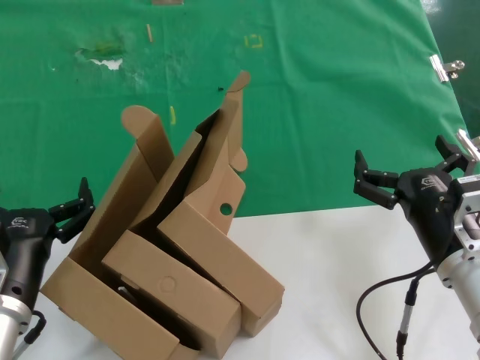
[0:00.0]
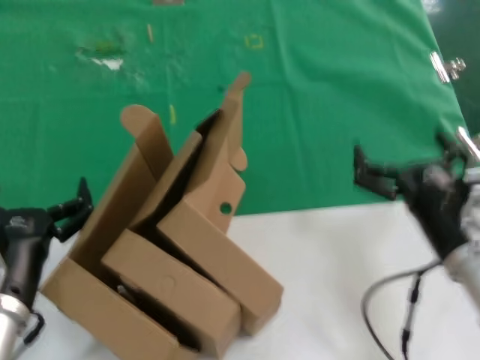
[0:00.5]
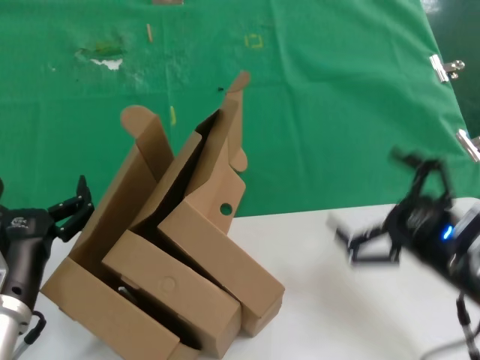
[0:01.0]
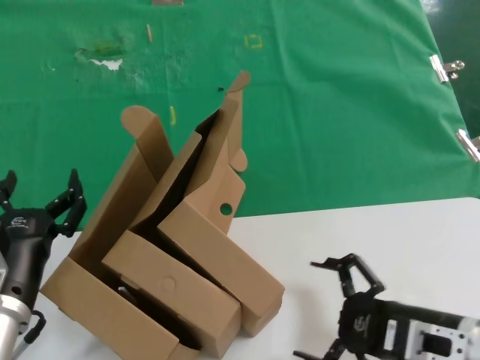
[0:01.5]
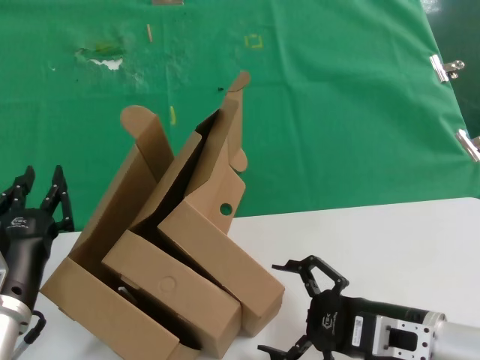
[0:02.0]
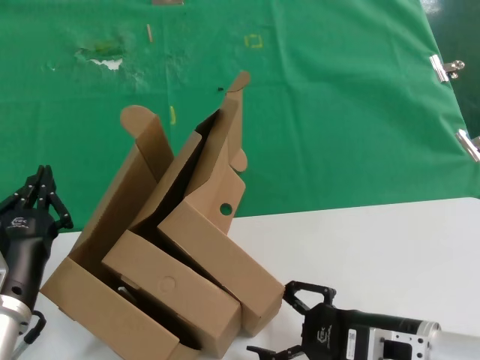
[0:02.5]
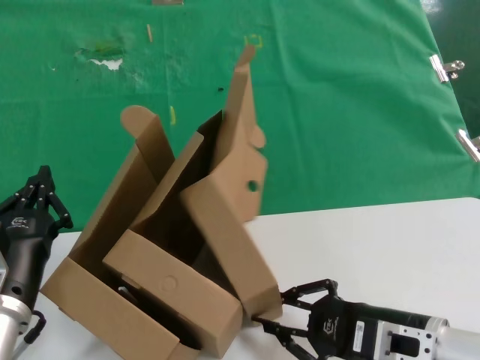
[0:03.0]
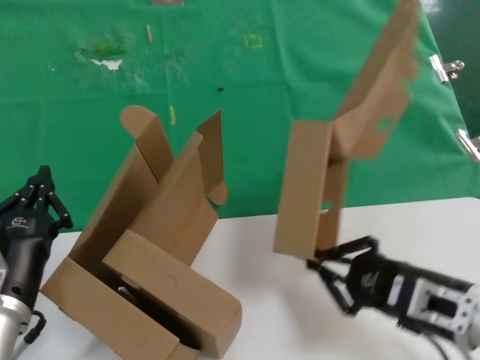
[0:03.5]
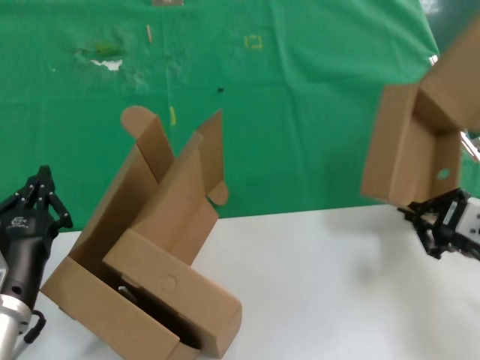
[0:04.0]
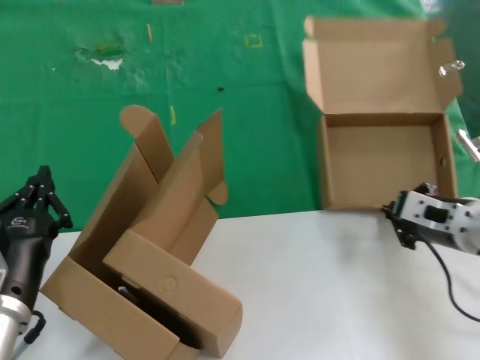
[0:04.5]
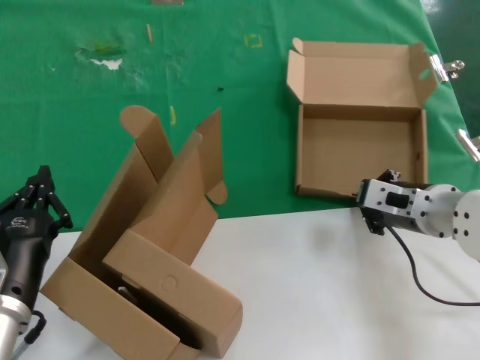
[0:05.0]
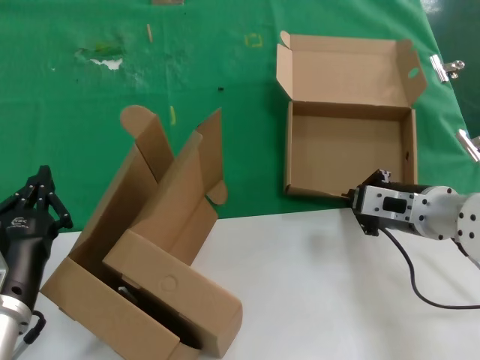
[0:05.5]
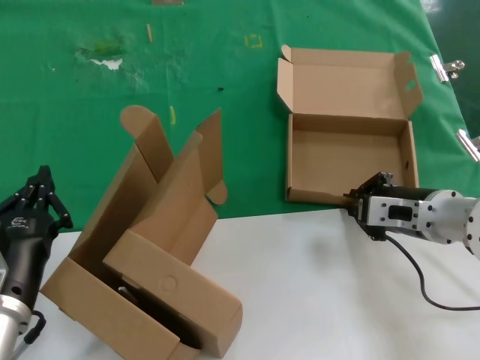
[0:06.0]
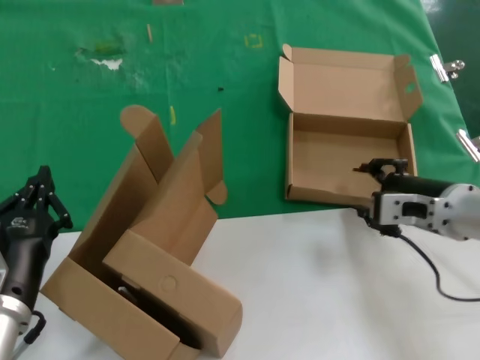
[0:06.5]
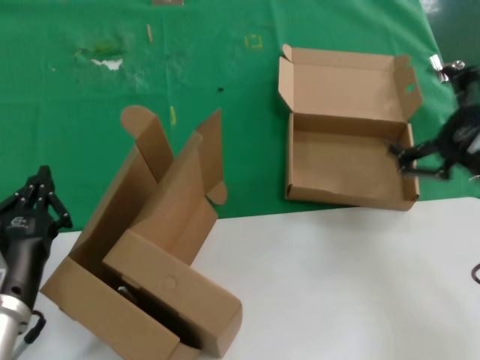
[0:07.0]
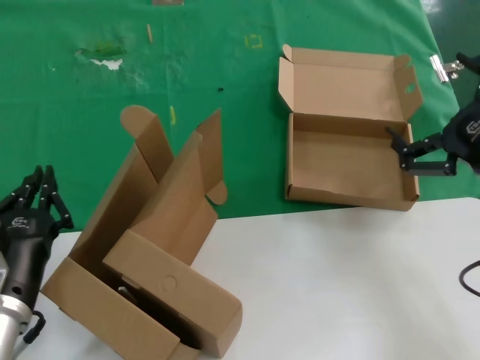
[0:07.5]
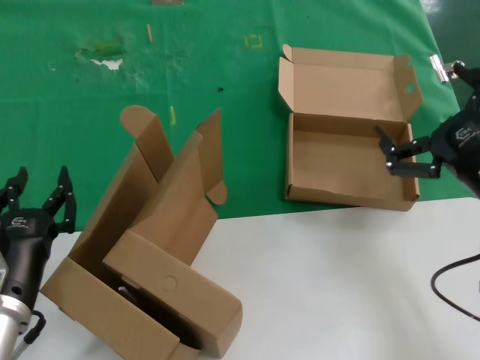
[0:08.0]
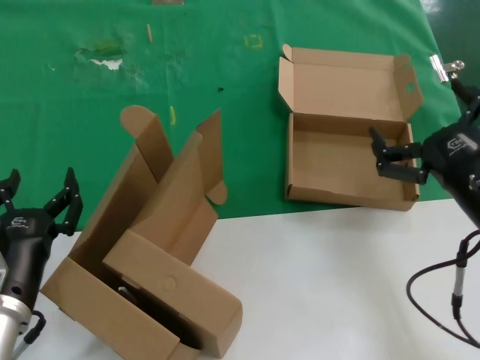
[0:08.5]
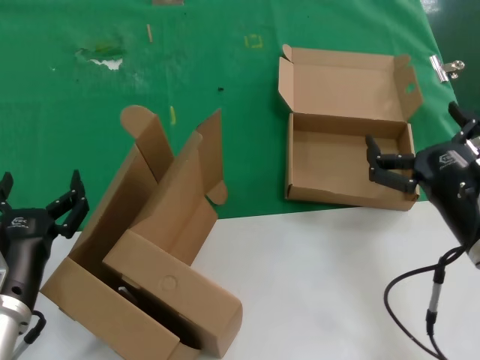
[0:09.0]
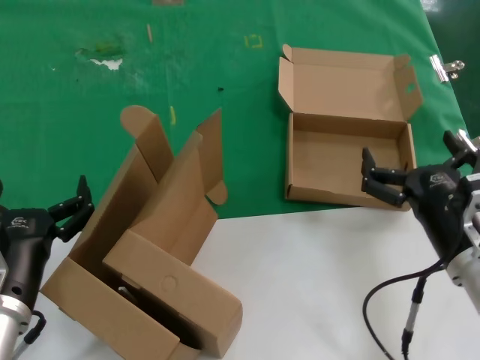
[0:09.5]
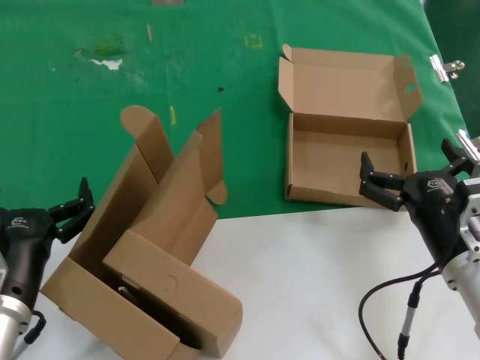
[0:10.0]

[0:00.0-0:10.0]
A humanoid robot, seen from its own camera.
Task of the whole recording: pick up the paper box and put it at the back.
Step, 0:00.0 to 0:03.0: Grasp the paper box.
Step, 0:03.5 to 0:06.0: Place the paper box on the table.
0:02.0 to 0:04.0: The right hand goes approximately 15 cm to the right, upward and forward.
0:04.0 to 0:06.0: The right hand heads forward and to the left, covering roughly 10 cm.
0:06.0 to 0:08.0: The right hand goes approximately 15 cm backward and upward.
0:08.0 to 0:10.0: The right hand travels downward and to the left by approximately 10 cm.
